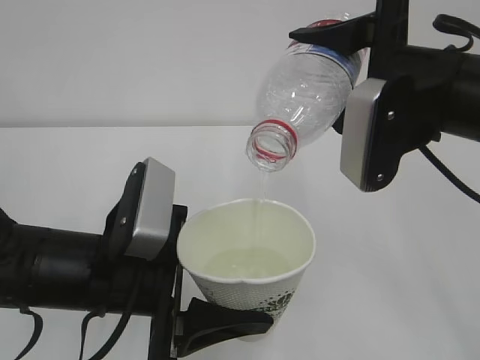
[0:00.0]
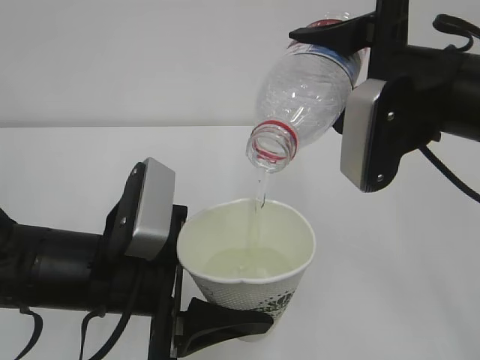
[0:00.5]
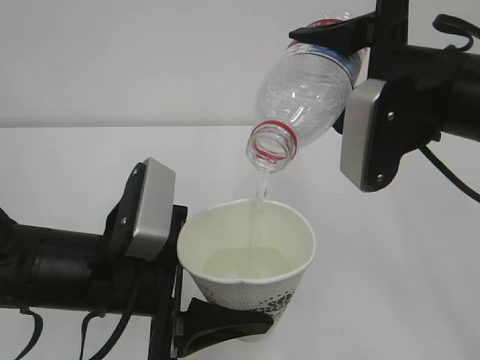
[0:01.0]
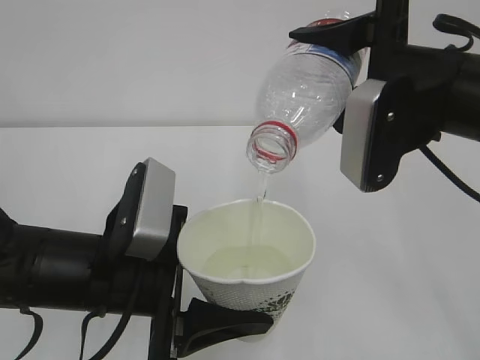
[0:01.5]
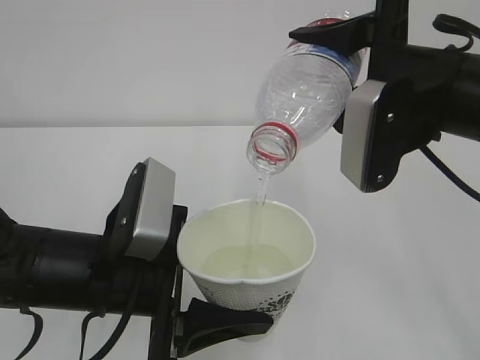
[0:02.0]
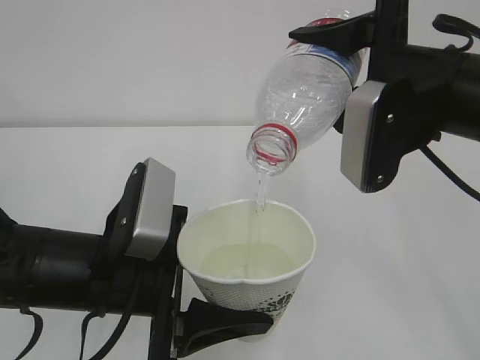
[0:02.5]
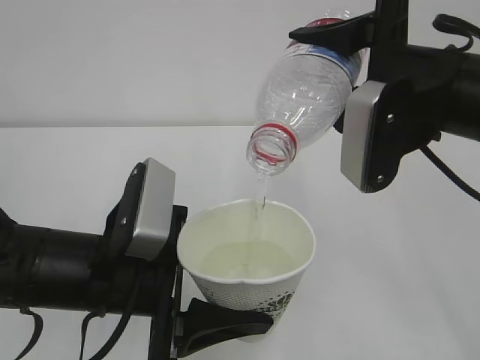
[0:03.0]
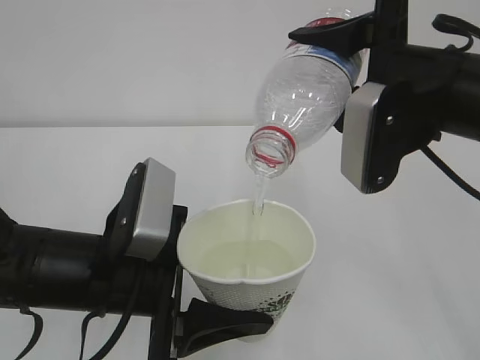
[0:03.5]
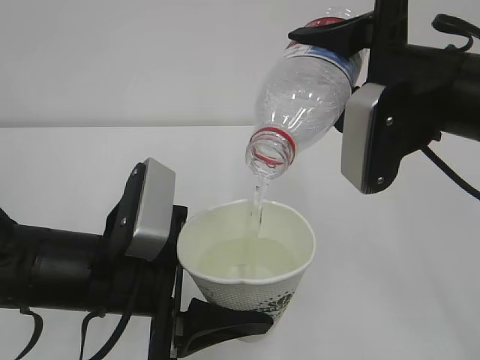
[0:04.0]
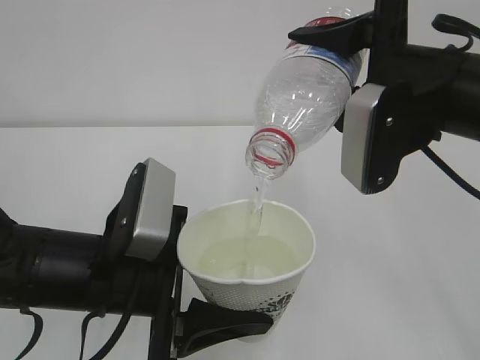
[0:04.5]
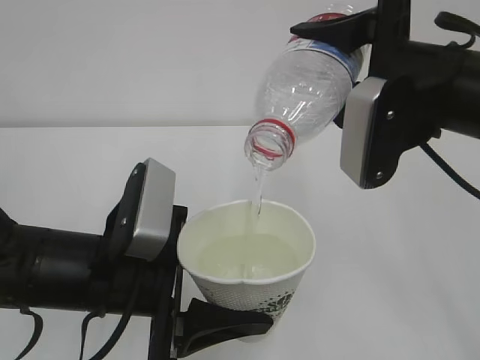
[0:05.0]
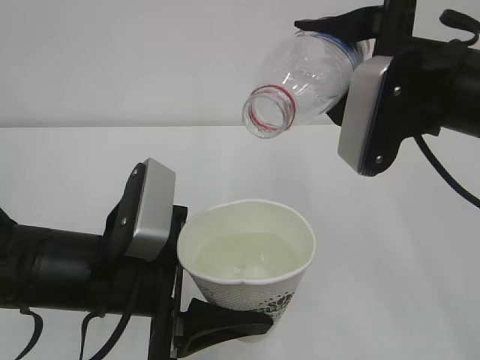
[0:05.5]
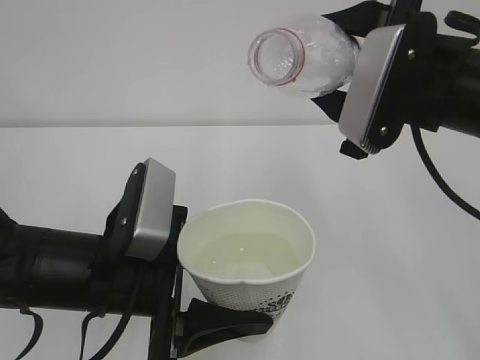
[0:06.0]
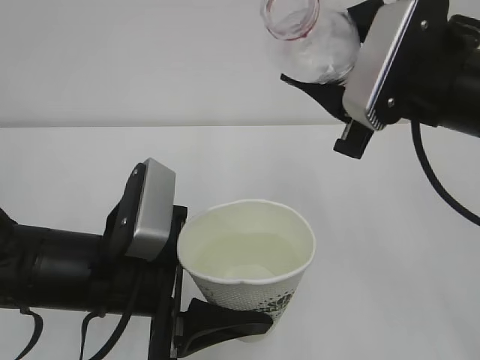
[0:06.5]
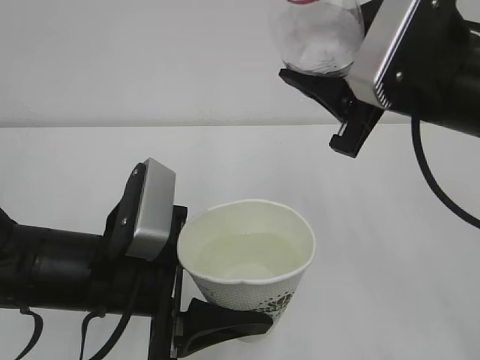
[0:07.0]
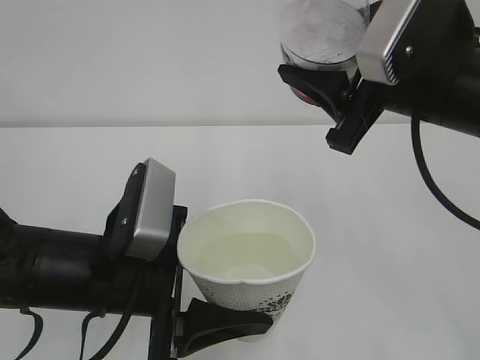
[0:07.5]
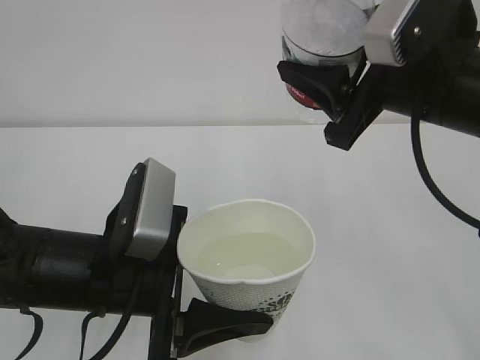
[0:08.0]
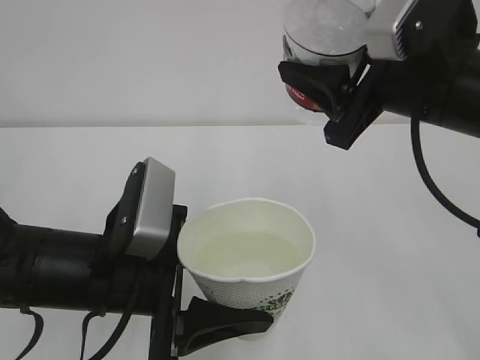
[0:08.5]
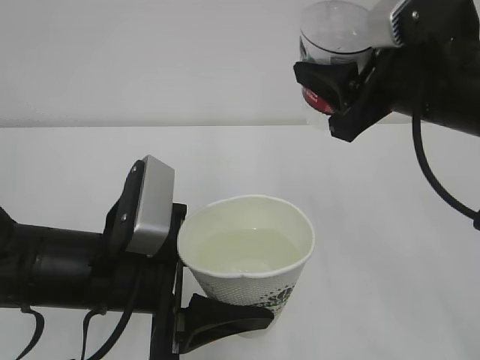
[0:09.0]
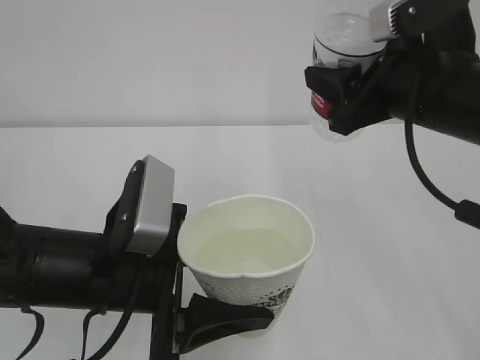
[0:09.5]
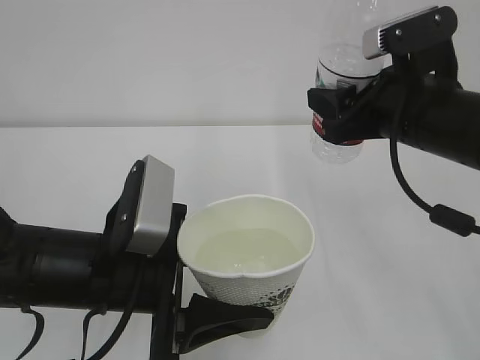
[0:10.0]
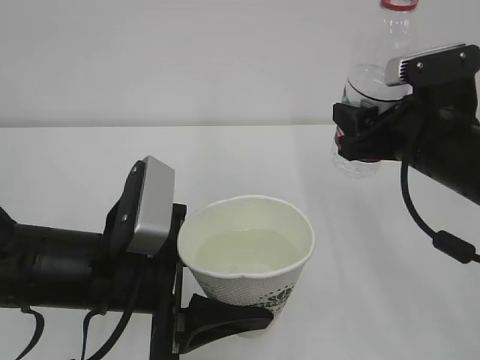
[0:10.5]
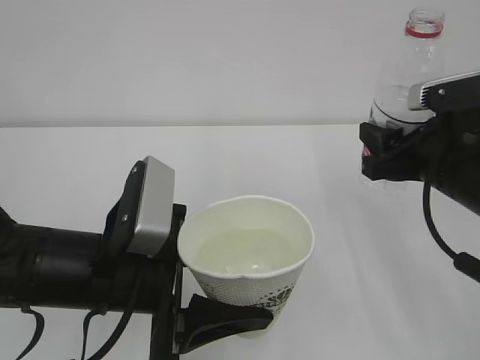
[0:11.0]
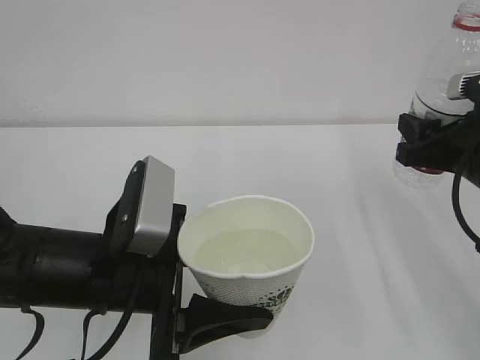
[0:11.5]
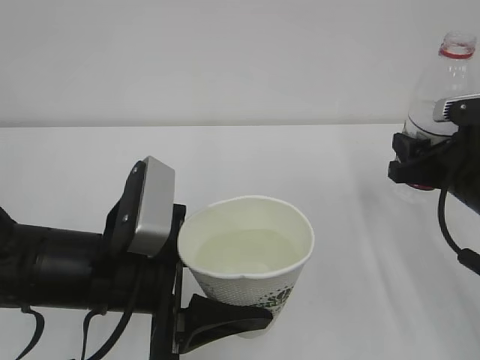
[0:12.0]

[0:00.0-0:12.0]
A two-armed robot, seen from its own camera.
0:00.0 to 0:04.0: Both grippers stay about where they are.
0:08.0 to 0:10.0: The right gripper shifts by some 5 cm.
0:10.0 to 0:12.0: The right gripper travels downward and to the right by roughly 10 cm.

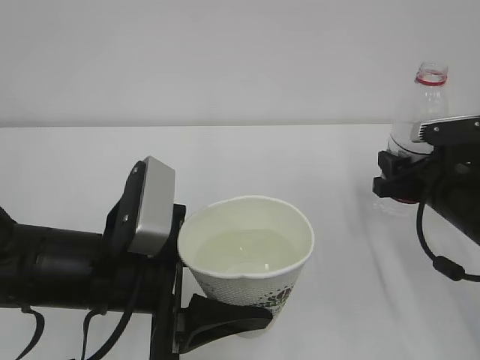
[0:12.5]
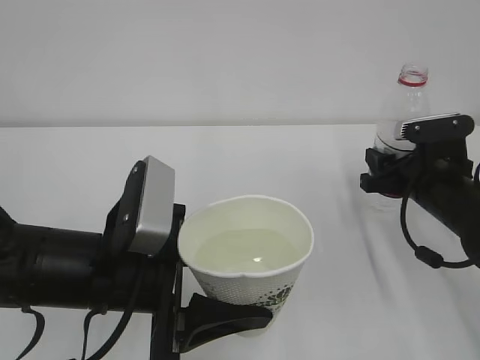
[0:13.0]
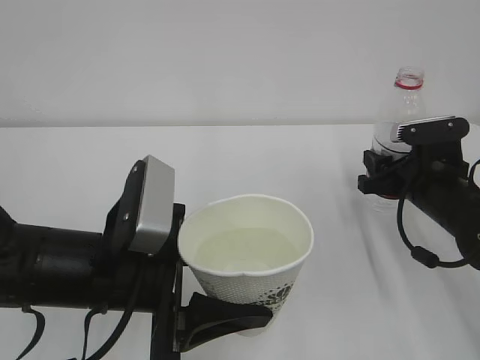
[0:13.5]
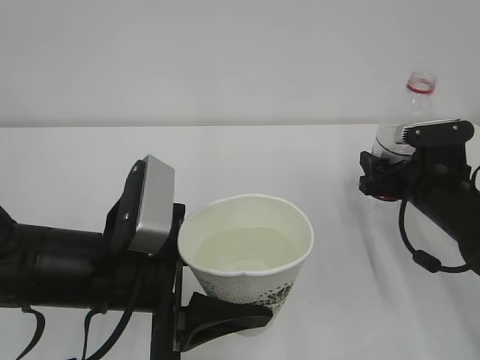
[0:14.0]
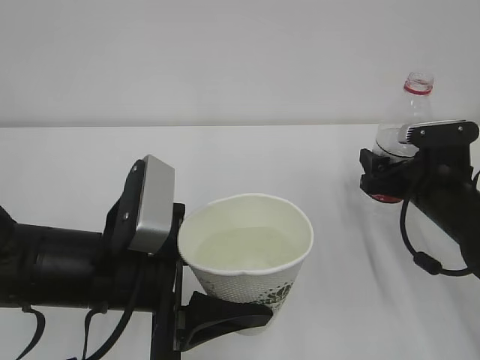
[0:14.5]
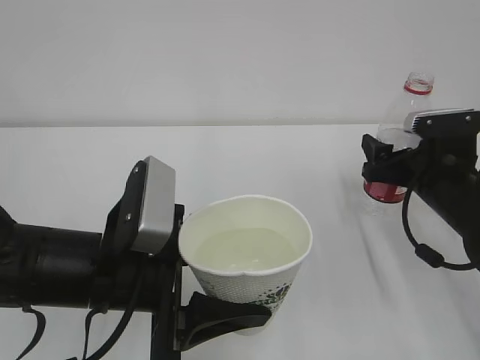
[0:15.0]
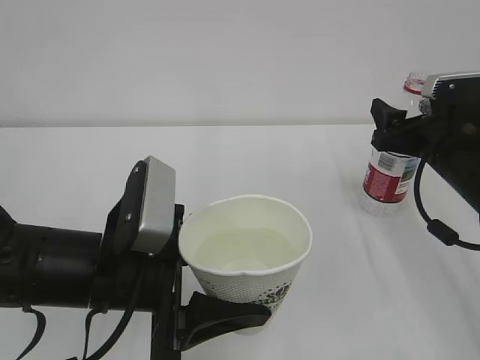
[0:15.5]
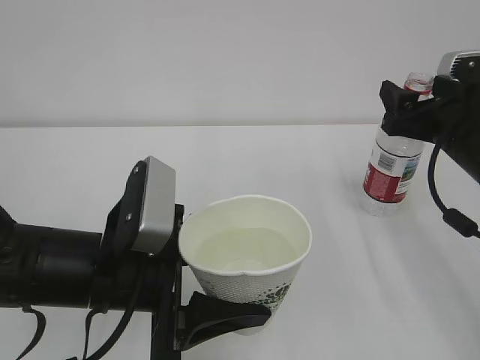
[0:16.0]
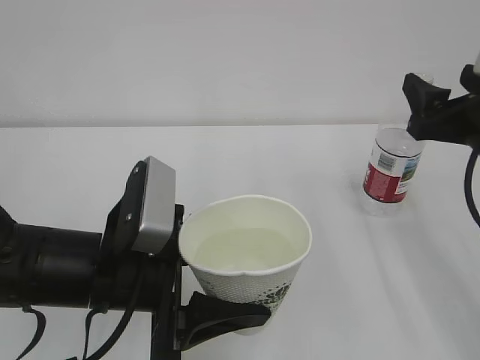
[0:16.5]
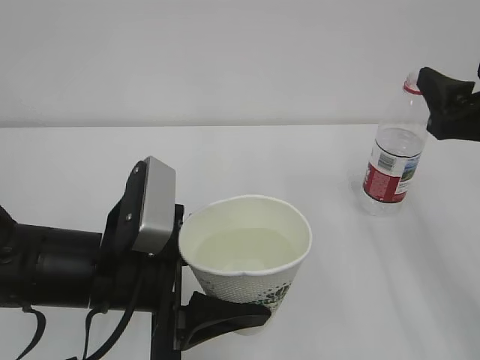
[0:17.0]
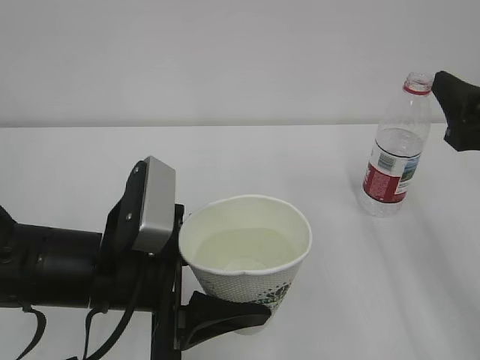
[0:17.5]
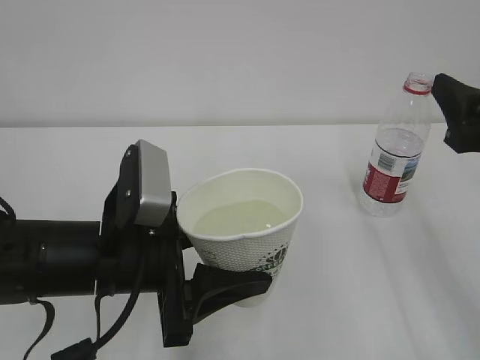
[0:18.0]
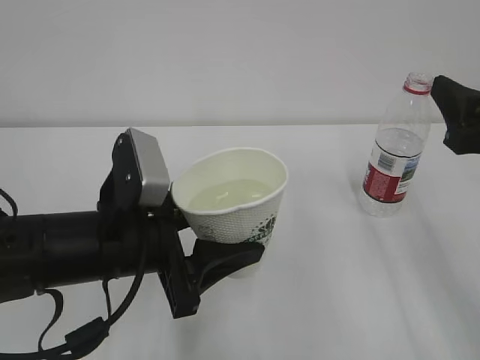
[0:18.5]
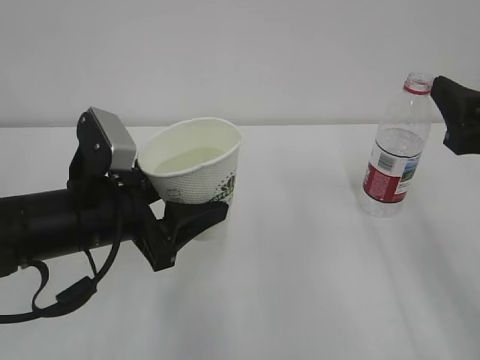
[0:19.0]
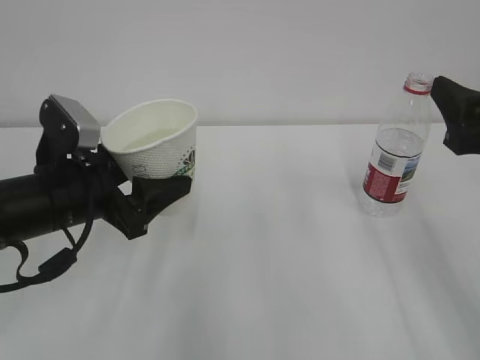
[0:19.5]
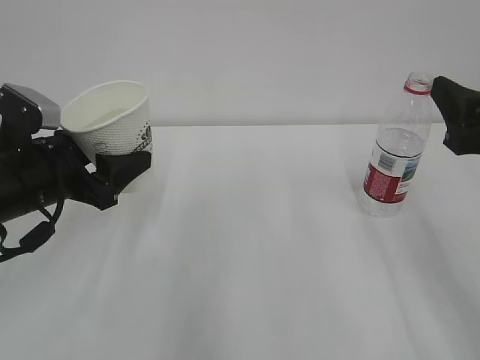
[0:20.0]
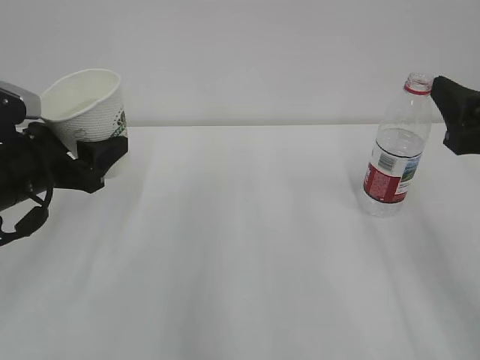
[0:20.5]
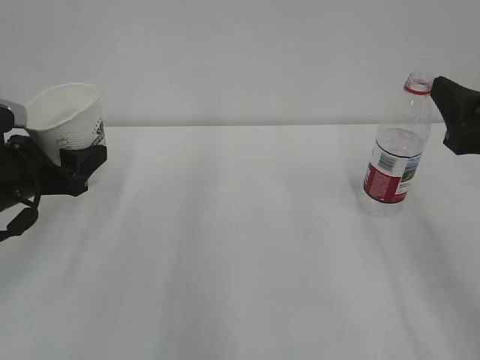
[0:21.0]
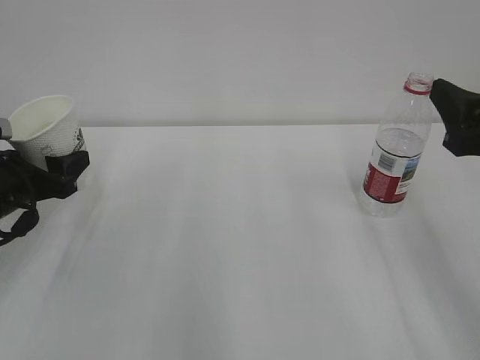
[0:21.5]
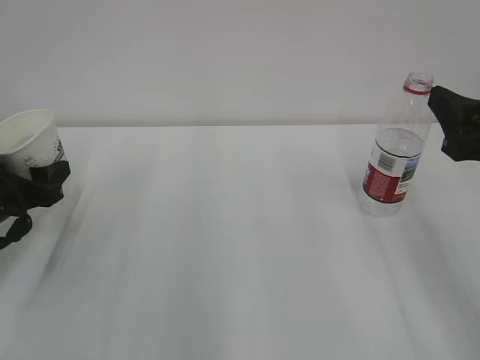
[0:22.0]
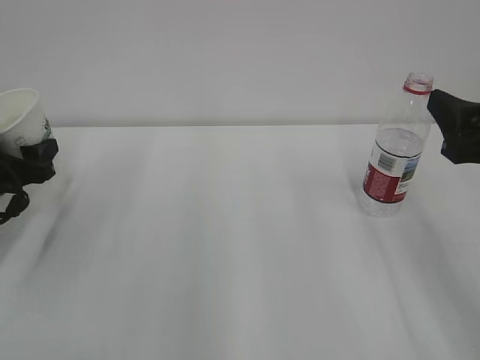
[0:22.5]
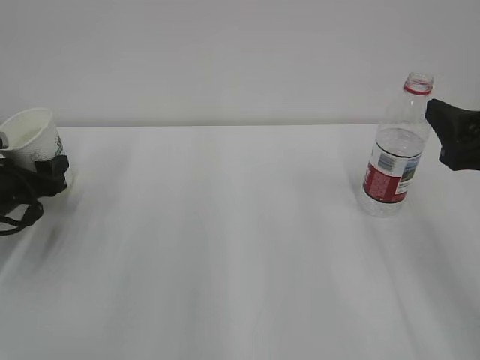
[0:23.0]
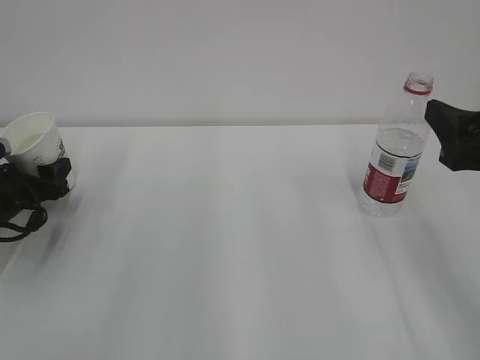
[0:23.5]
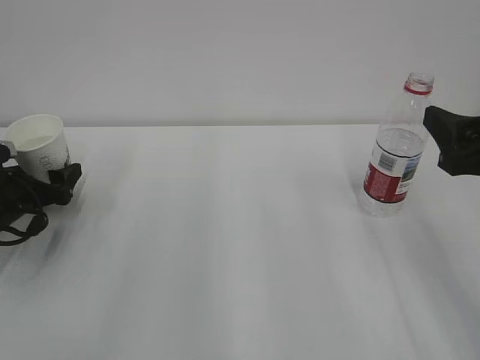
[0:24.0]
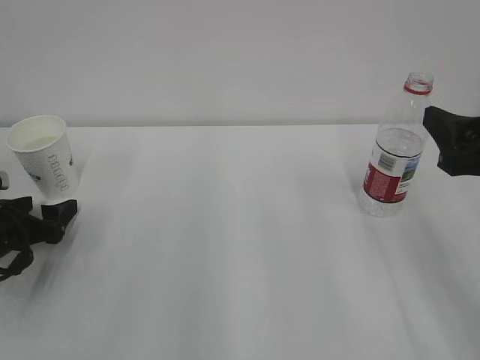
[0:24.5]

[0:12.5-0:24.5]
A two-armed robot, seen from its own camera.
0:12.5 to 0:14.5: The right gripper opens its fingers.
0:14.5 to 0:16.5: The right gripper heads upward and backward, covering approximately 15 cm.
0:16.5 to 0:18.5: The right gripper is displaced backward by some 5 cm.
0:18.5 to 0:20.5: The left gripper travels to the left and forward by about 15 cm.
0:20.5 to 0:22.5: The left gripper moves to the left, downward and forward, some 15 cm.
0:22.5 to 0:24.5: The left gripper shifts approximately 5 cm downward, and opens its fingers.

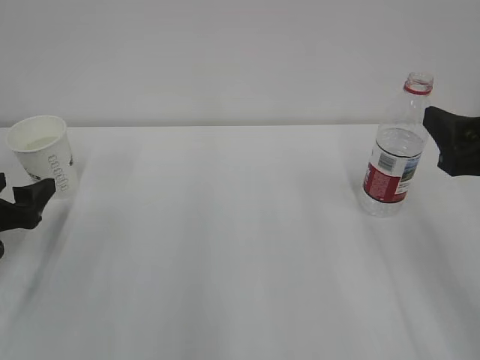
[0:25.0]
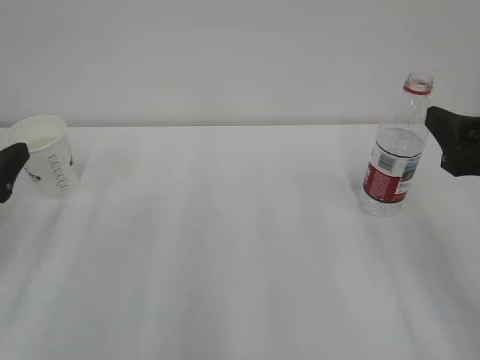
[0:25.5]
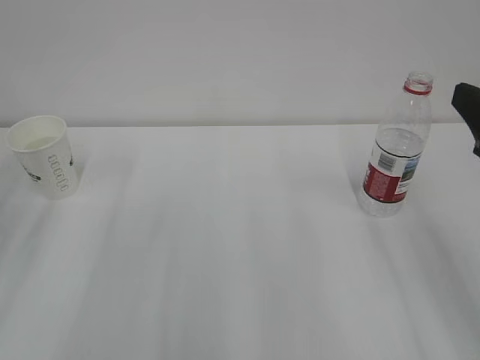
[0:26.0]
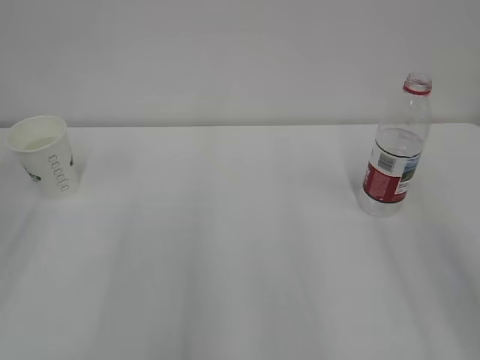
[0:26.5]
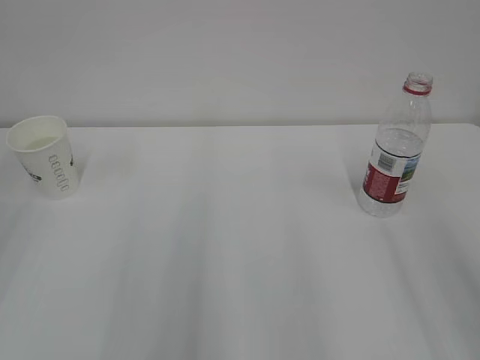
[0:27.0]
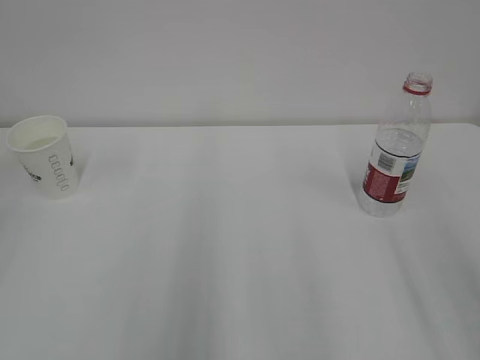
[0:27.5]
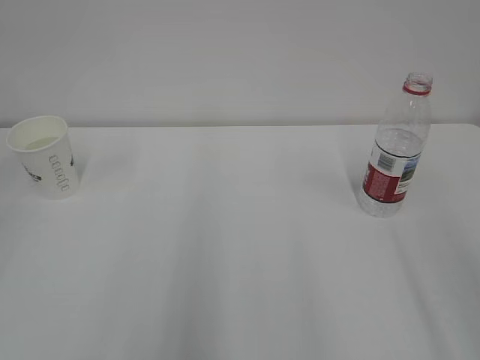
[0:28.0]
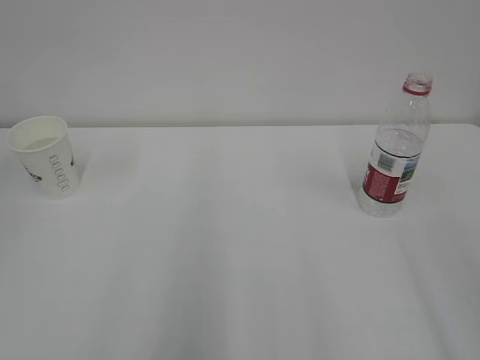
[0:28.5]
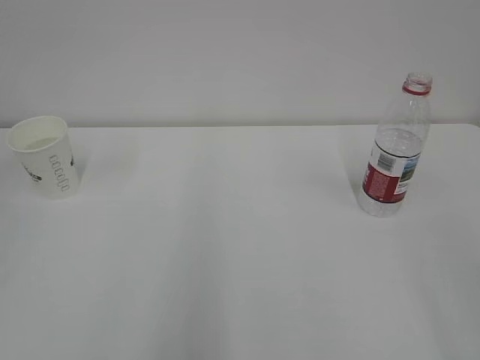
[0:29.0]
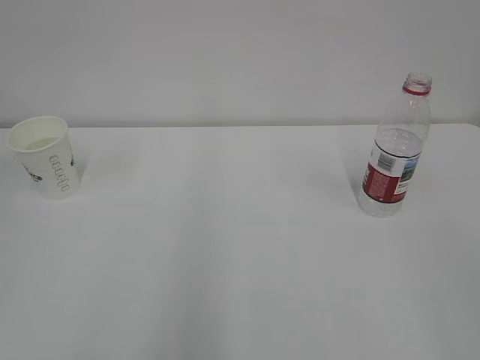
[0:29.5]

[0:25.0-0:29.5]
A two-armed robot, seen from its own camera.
0:25.0 to 0:27.0: The left gripper is displaced upward and backward by some 25 cm; the right gripper is displaced backward and upward by approximately 10 cm.
